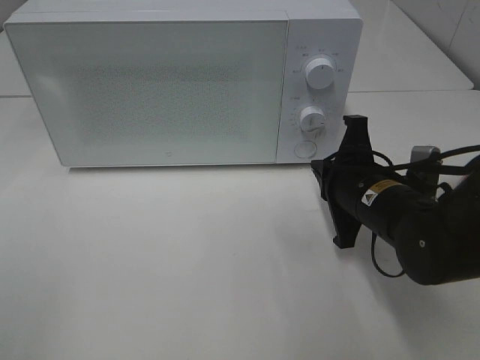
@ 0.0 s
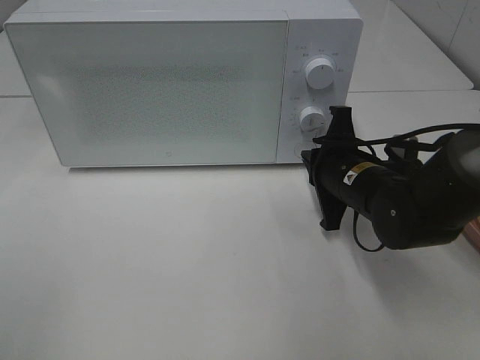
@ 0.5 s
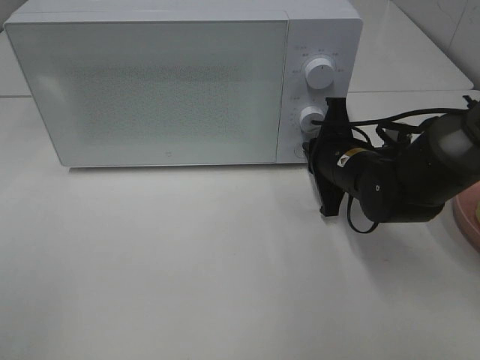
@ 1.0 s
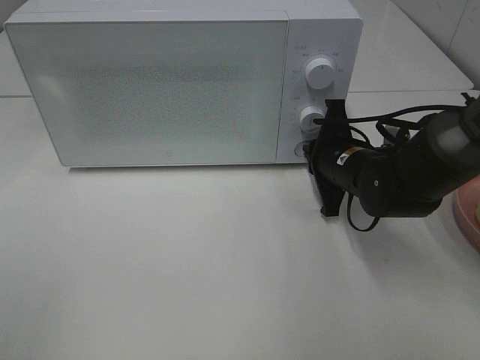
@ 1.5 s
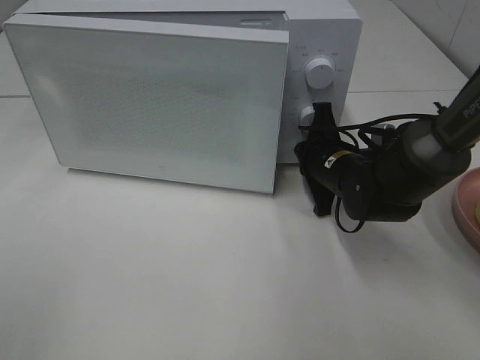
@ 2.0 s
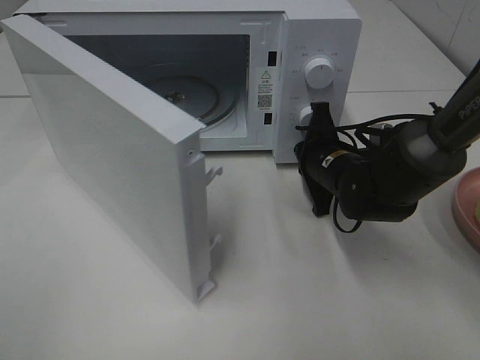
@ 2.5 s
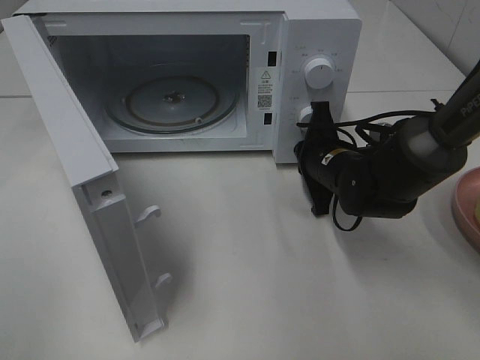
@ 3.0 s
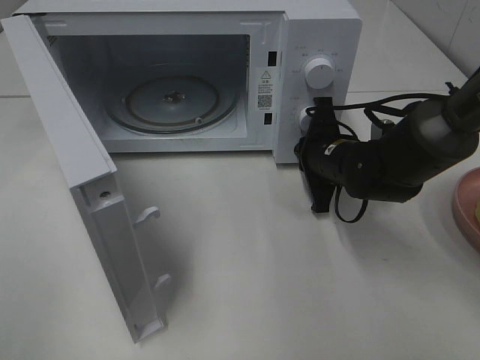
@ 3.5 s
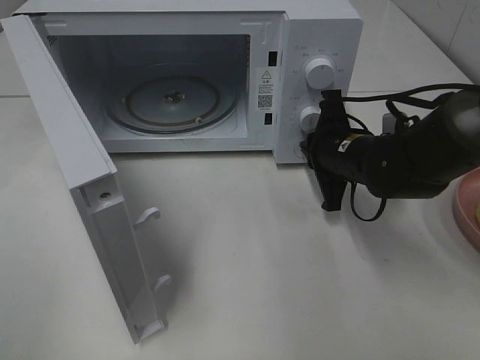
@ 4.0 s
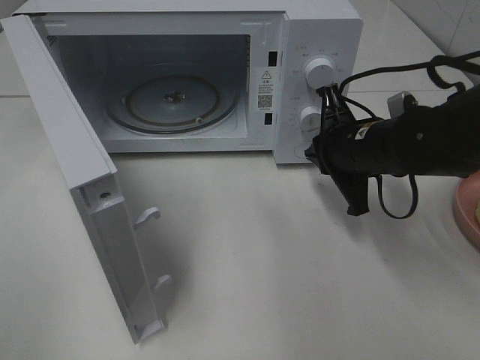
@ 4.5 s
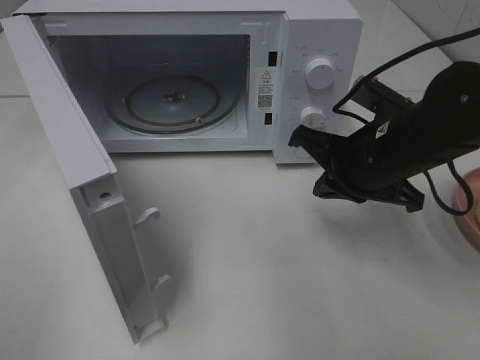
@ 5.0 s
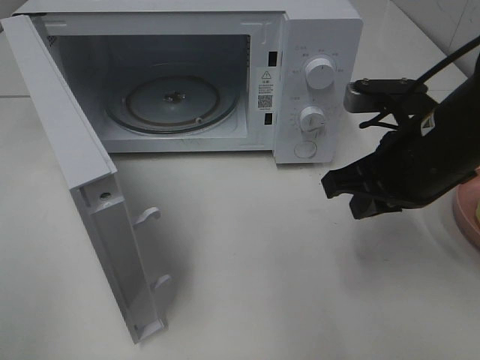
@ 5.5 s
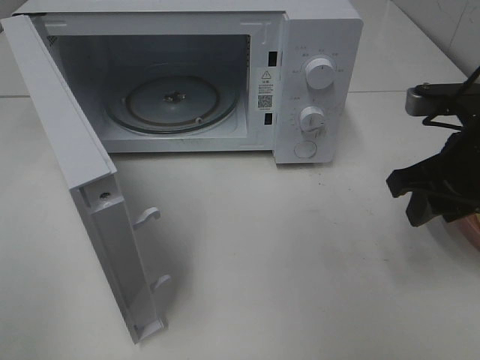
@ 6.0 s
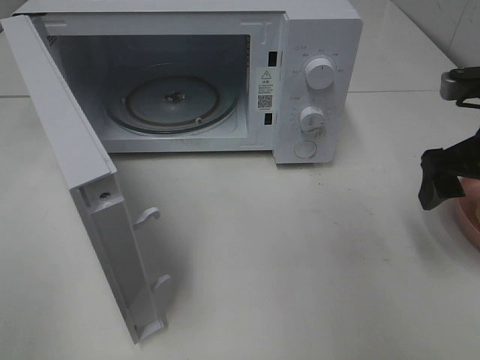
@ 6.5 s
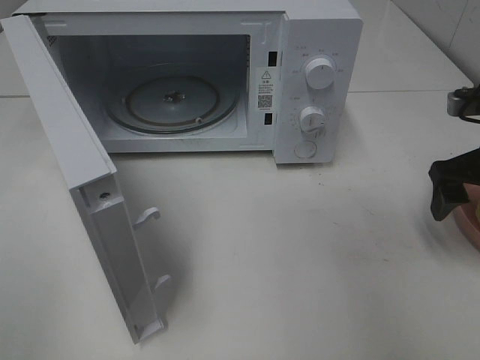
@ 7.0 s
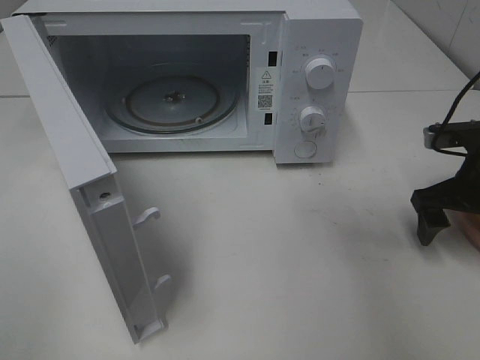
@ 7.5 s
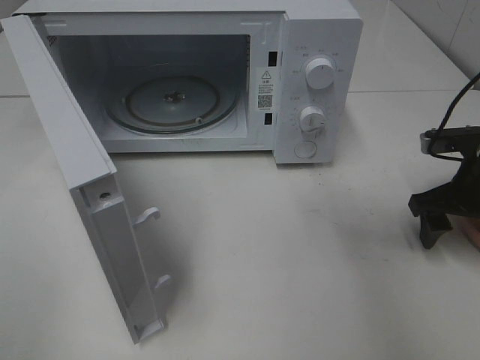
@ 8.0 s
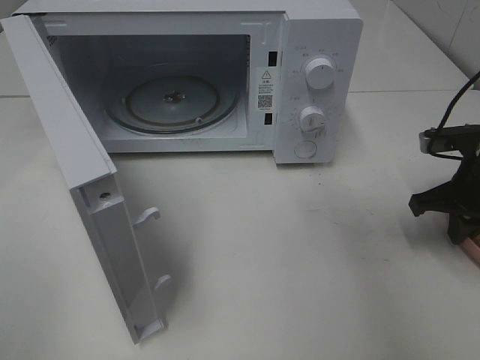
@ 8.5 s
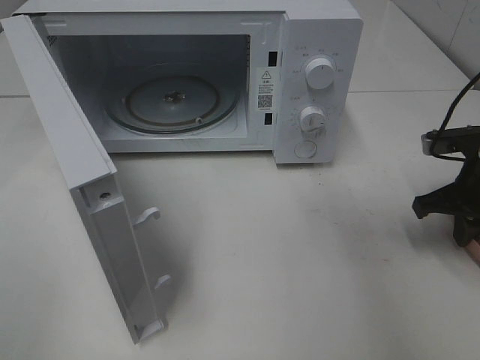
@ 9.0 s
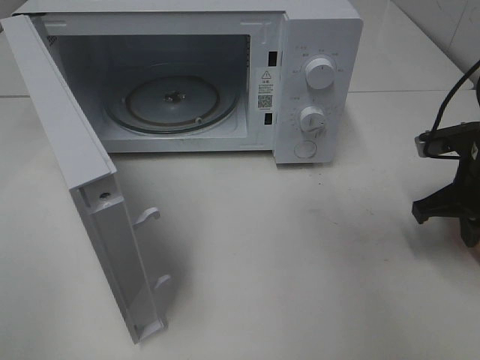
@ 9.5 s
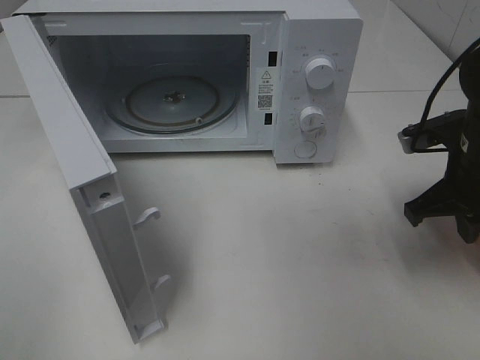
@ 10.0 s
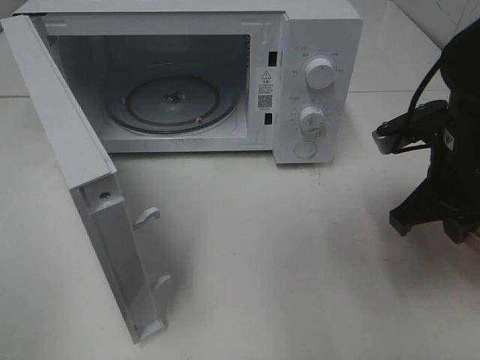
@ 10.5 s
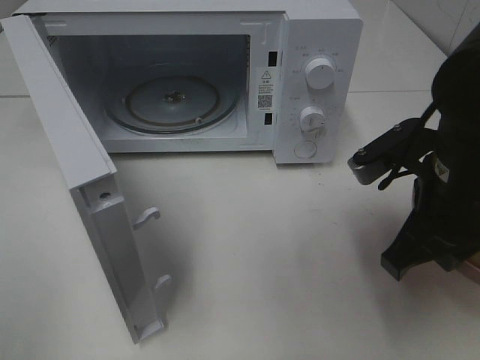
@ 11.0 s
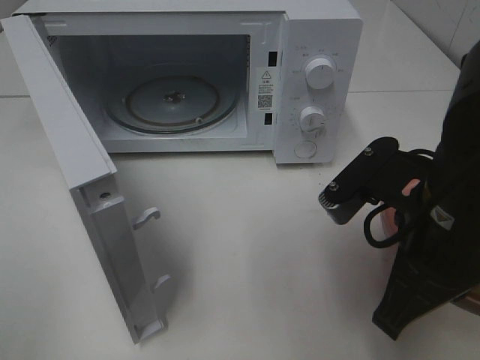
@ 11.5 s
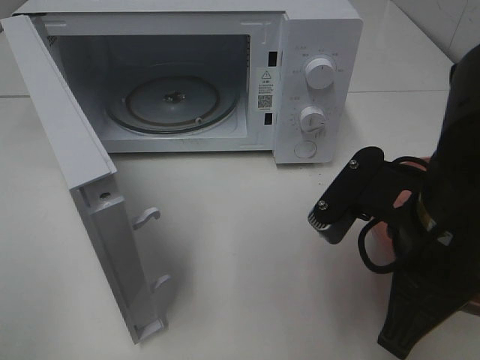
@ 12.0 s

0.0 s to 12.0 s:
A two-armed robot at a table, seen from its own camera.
Task of the whole recording: Heat Sandwich.
Step, 0.0 to 4.0 s: Right hand: press the switch.
Step, 4.5 to 8.5 s: Right hand: grab the plate with the sandwich.
0.0 to 2.0 s: The right gripper is displaced forward by approximately 10 cm.
4.0 to 6.0 s: The right gripper is displaced upward, backward and to the right by approximately 15 cm, and opens its fingers.
6.0 to 8.0 s: The right gripper travels downward, to the right and forward by approximately 10 cm, and opens up.
8.0 to 10.0 s: The right gripper changes place by some 5 cm, and closes its fingers.
10.0 to 12.0 s: The right gripper moves backward and to the left, about 15 cm.

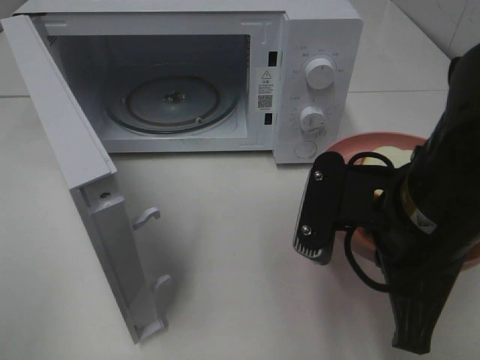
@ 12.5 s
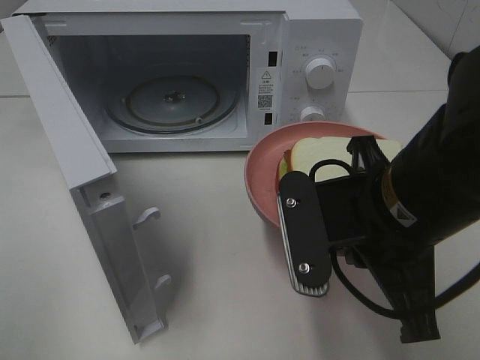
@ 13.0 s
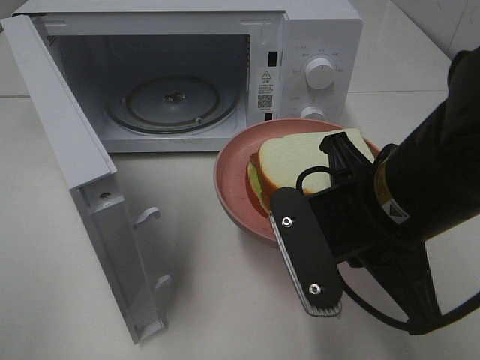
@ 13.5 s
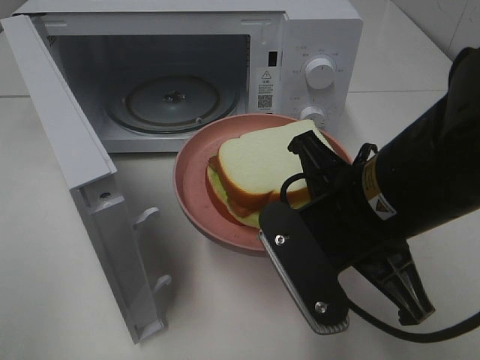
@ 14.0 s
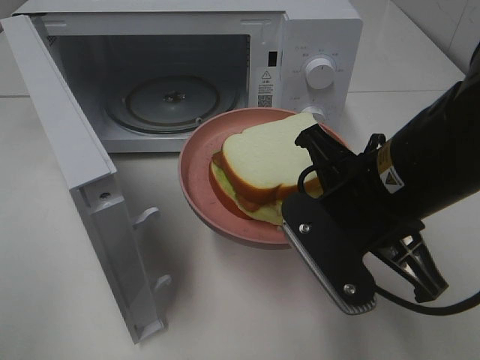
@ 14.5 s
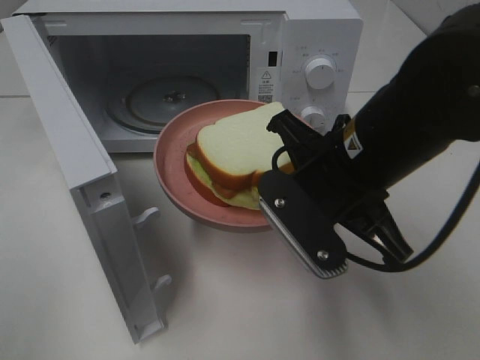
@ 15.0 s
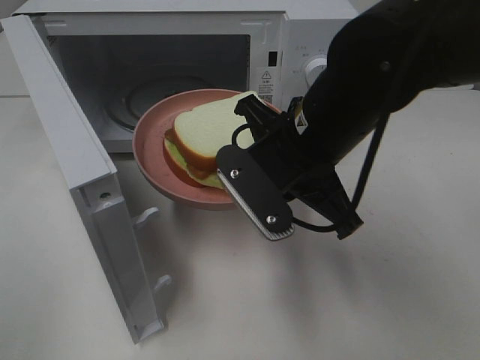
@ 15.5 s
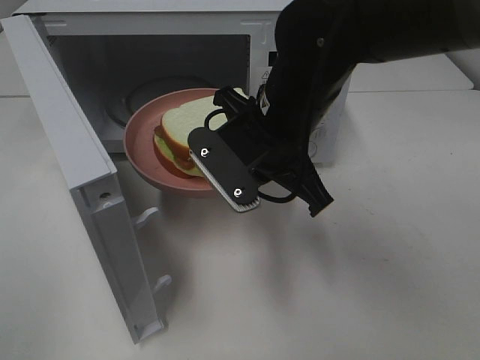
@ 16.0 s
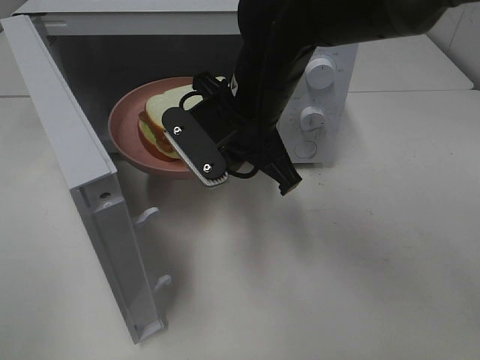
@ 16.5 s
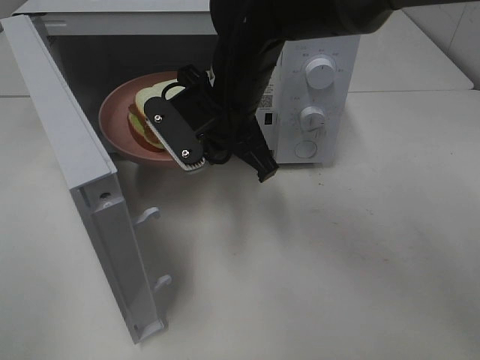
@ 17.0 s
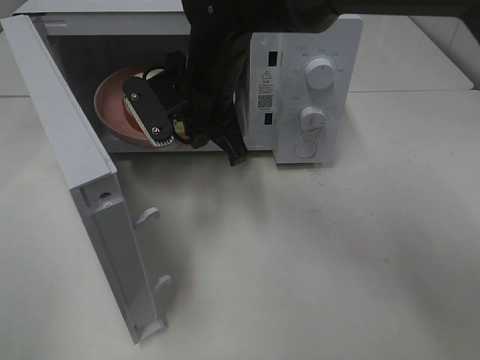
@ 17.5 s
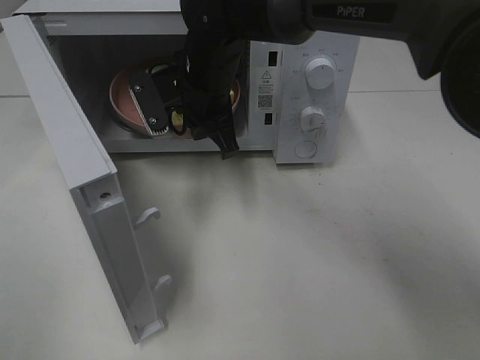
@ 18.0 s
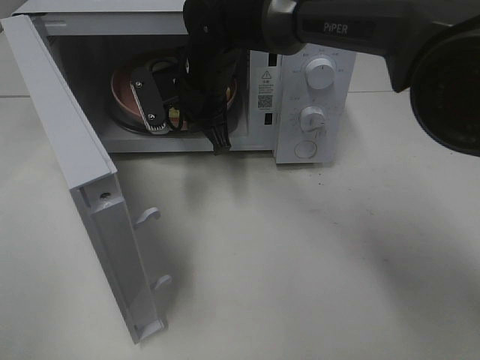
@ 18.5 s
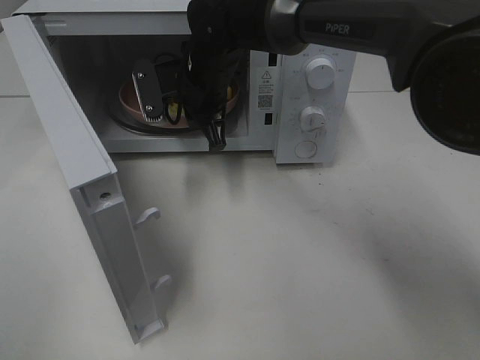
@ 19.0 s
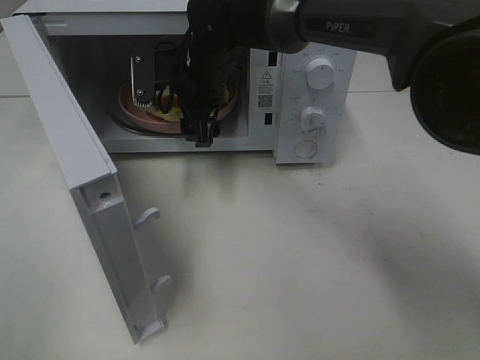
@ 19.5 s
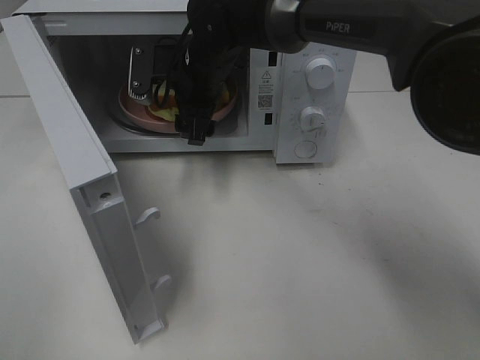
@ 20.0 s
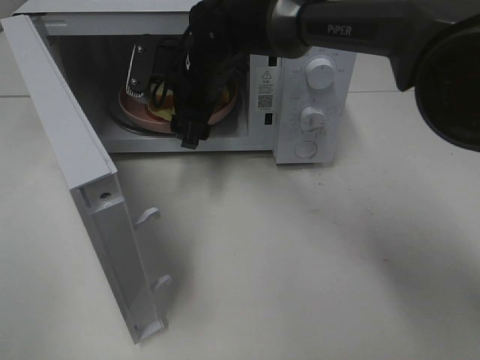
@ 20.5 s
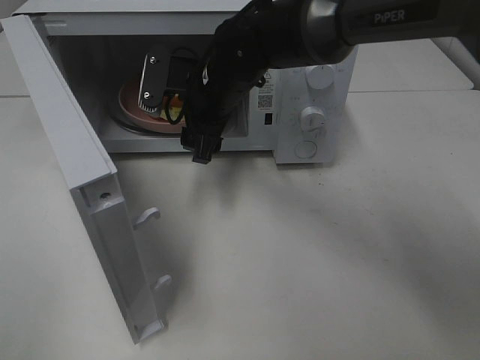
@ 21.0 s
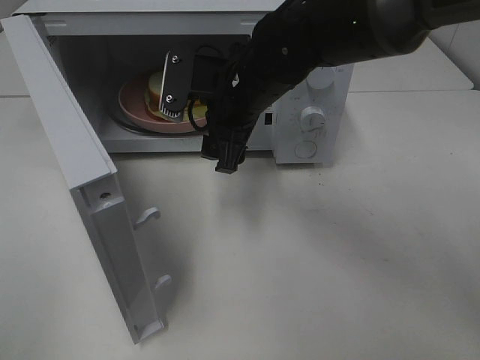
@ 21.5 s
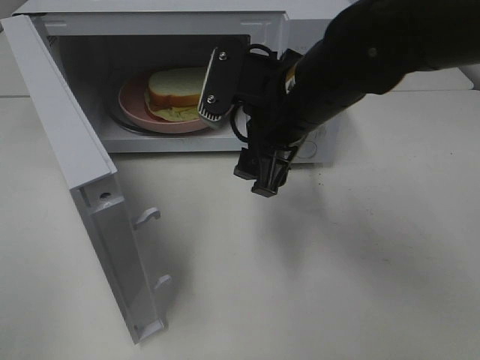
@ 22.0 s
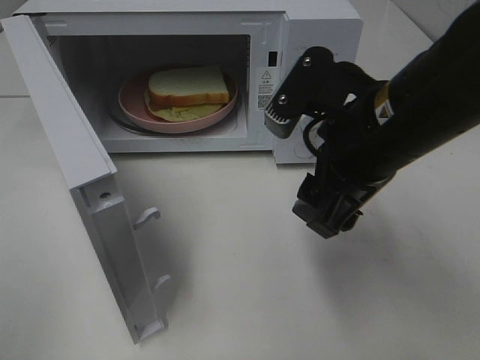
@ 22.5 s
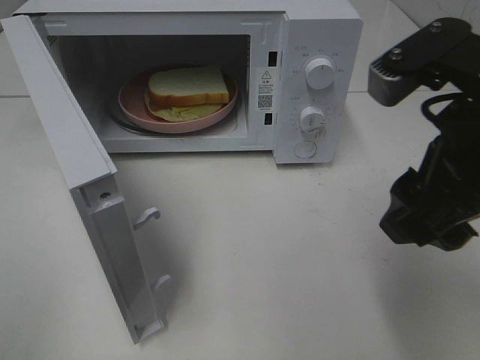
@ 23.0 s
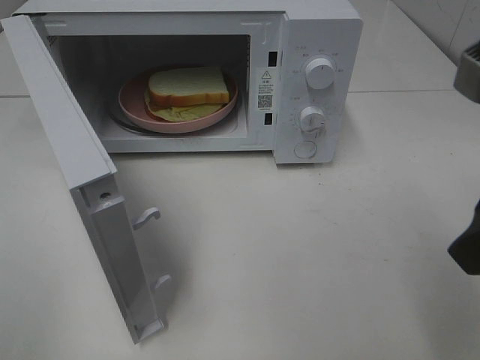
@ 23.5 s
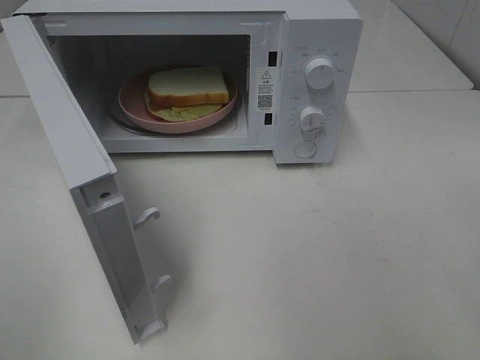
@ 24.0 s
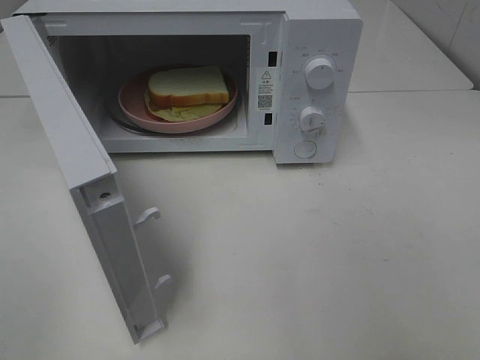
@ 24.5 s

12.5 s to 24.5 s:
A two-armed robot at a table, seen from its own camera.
Task of the whole recording: Heat Sandwich.
Step, 12.5 to 19.0 s: Right hand: place the plate in the microwave.
14.5 to 16.5 s: The right gripper goes some 15 cm forward and to the left.
16.5 to 18.5 s: The right gripper moves forward and to the left, roughly 10 cm.
18.5 to 20.5 s: The right gripper opens.
20.5 to 22.5 s: The right gripper heads backward and to the right, covering roughly 25 cm.
22.5 to 24.5 s: The right gripper is displaced backward and to the right by roughly 25 cm.

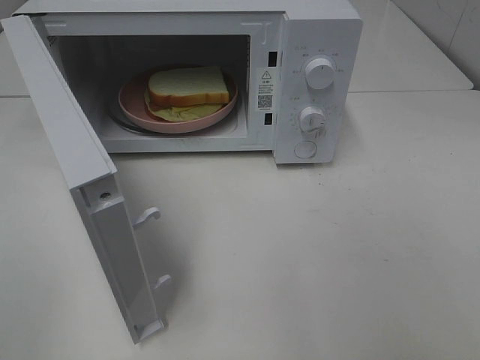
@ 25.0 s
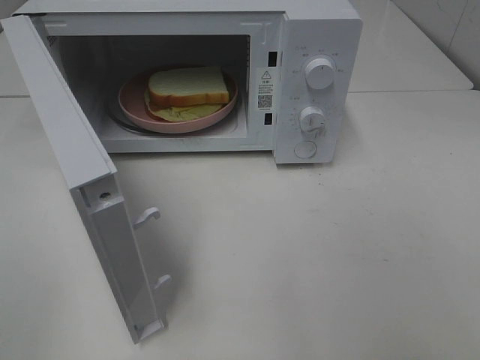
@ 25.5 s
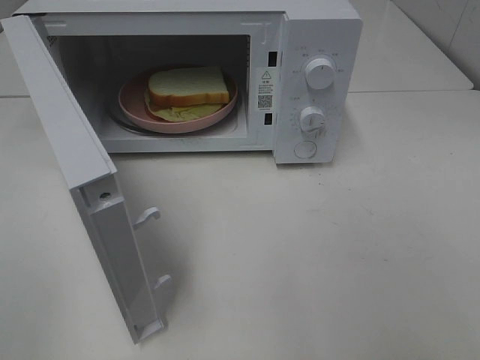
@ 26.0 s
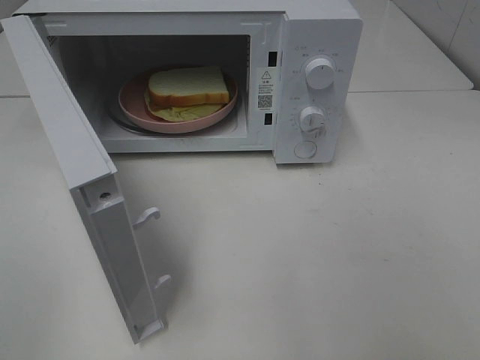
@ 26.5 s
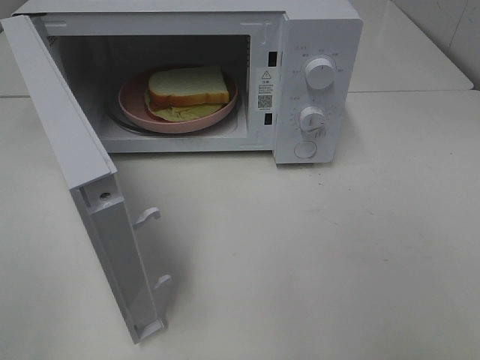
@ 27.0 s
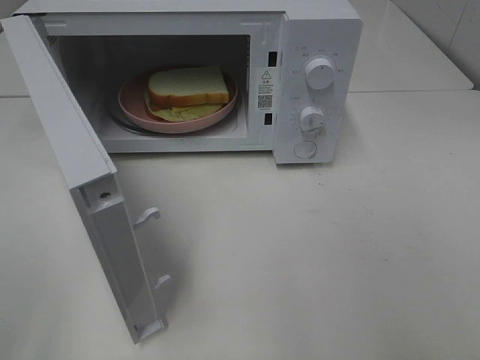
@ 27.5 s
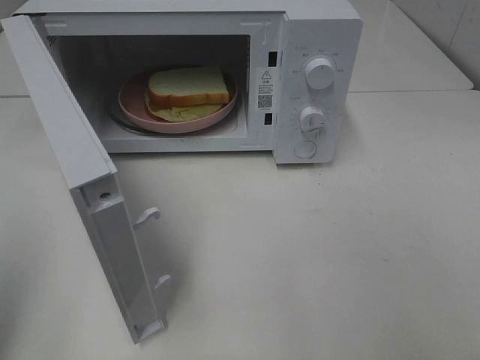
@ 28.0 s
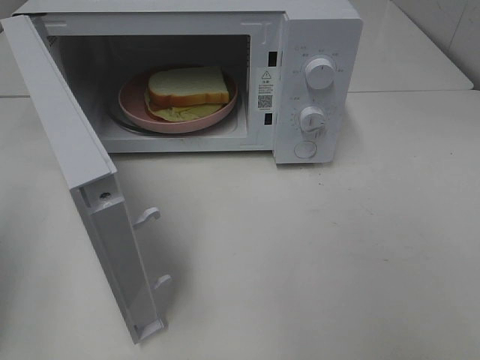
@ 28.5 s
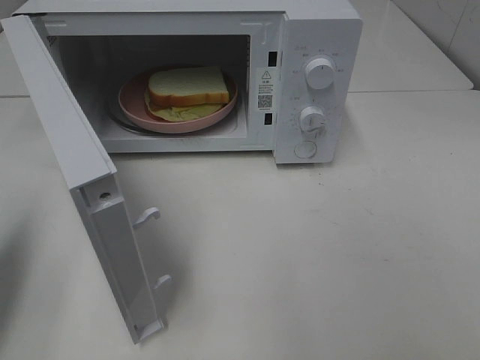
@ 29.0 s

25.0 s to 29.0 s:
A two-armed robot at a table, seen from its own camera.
Task of the whole recording: Heat Sandwich.
25.0 to 27.0 s: Both grippers stay put.
27.0 to 29.0 s: The left gripper goes approximately 15 cm forward, and closes.
